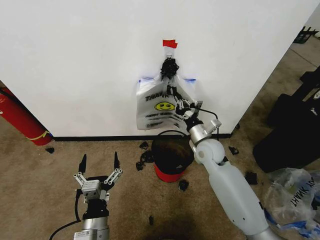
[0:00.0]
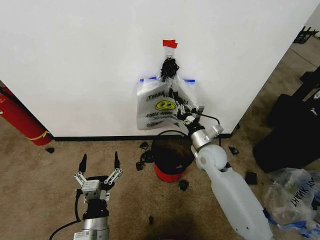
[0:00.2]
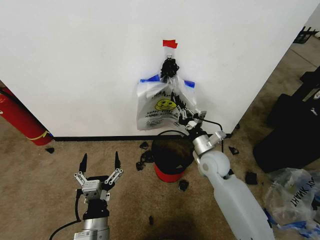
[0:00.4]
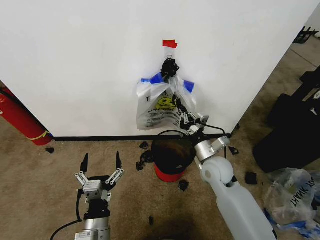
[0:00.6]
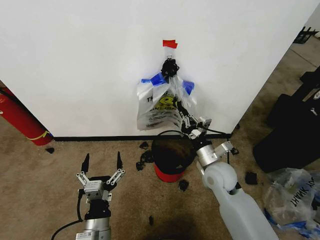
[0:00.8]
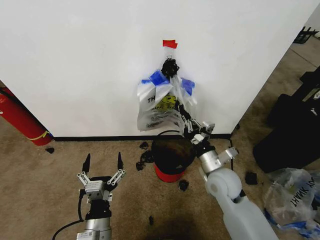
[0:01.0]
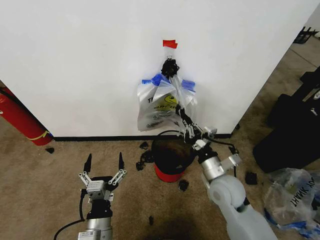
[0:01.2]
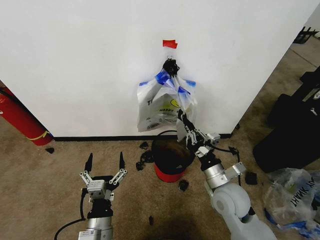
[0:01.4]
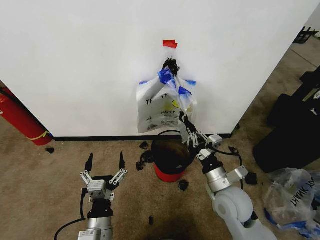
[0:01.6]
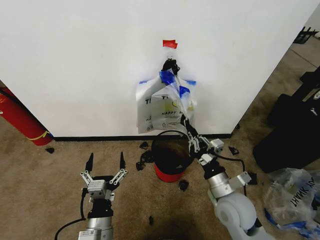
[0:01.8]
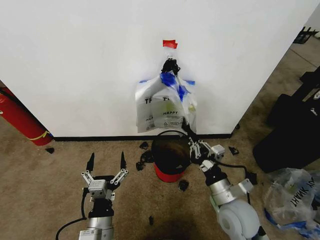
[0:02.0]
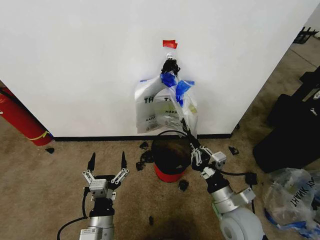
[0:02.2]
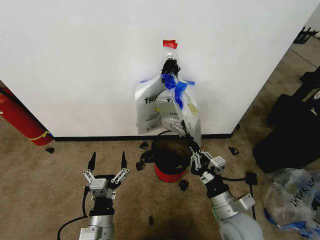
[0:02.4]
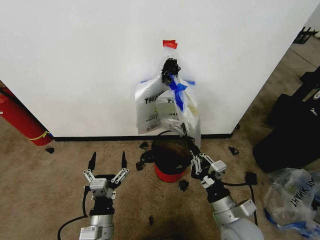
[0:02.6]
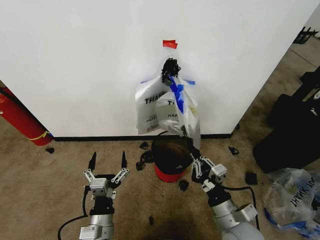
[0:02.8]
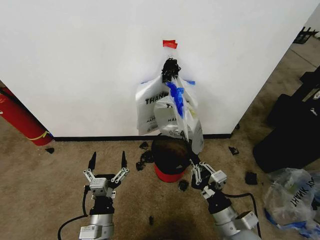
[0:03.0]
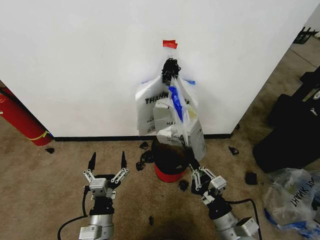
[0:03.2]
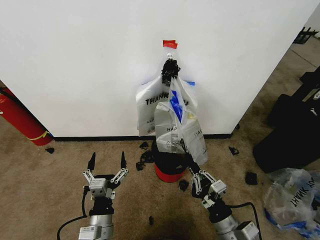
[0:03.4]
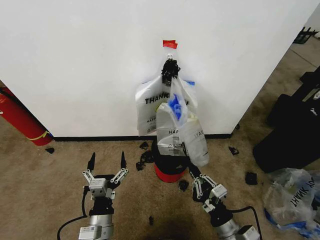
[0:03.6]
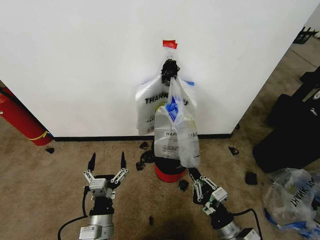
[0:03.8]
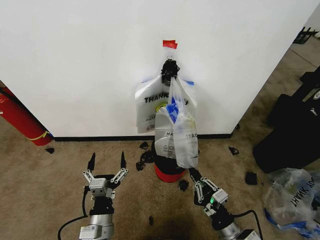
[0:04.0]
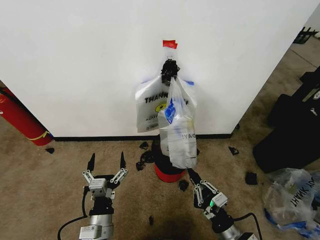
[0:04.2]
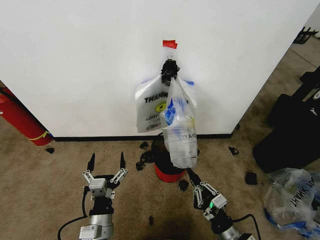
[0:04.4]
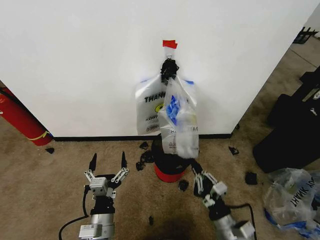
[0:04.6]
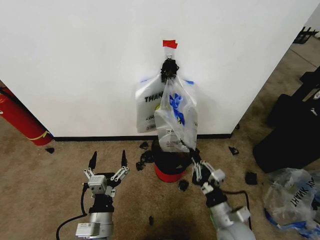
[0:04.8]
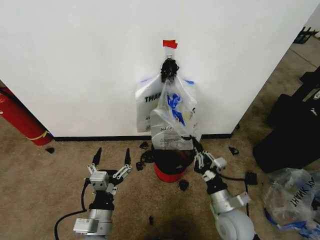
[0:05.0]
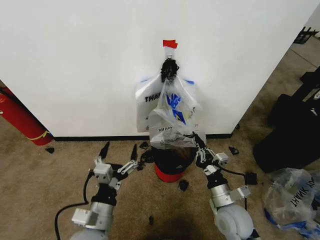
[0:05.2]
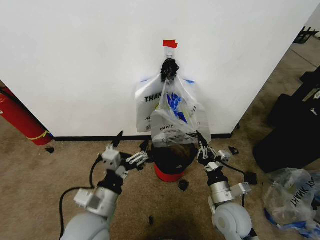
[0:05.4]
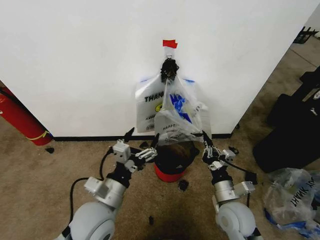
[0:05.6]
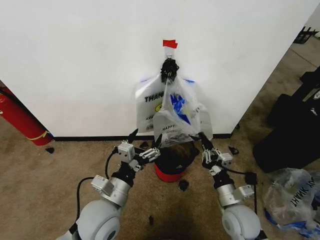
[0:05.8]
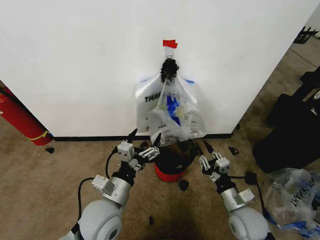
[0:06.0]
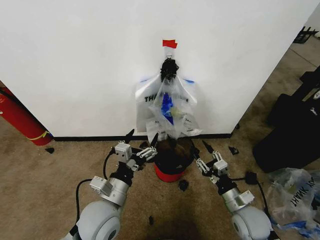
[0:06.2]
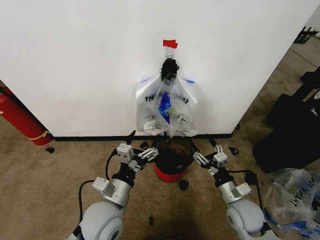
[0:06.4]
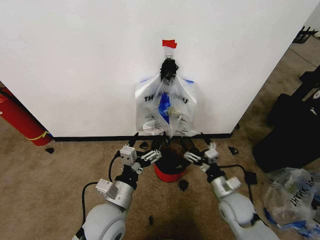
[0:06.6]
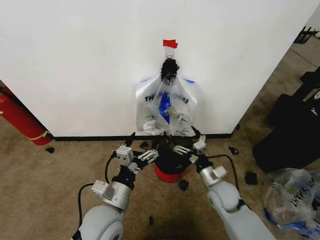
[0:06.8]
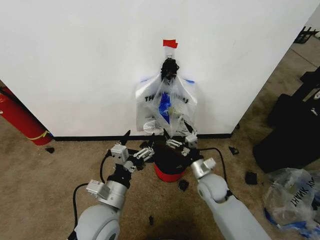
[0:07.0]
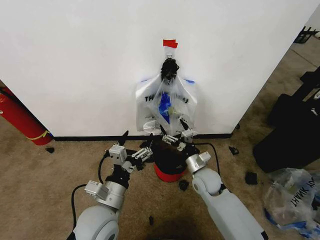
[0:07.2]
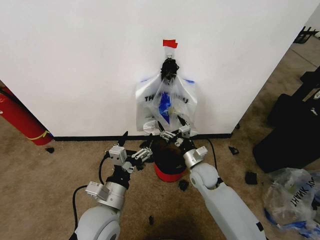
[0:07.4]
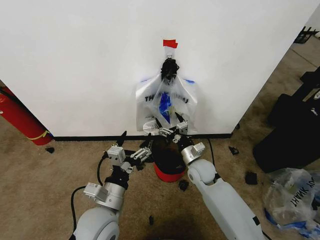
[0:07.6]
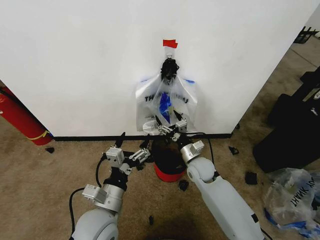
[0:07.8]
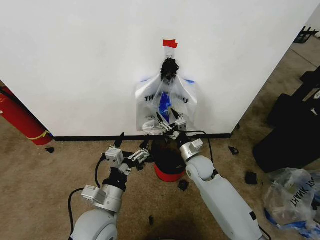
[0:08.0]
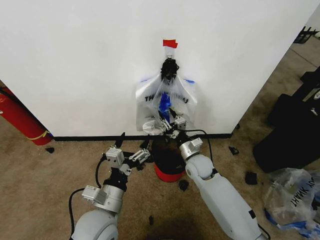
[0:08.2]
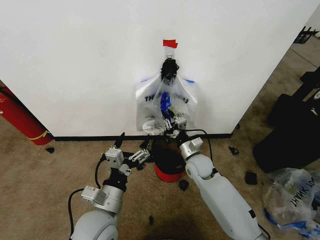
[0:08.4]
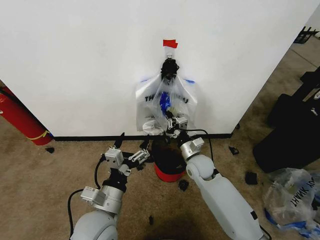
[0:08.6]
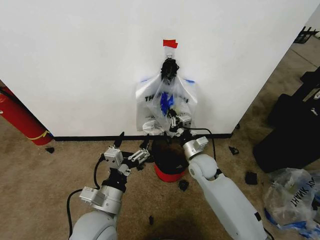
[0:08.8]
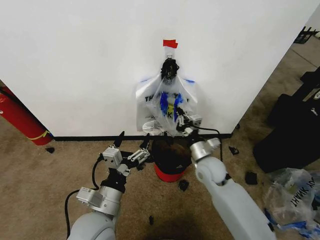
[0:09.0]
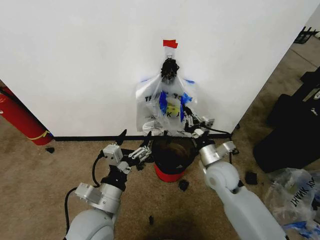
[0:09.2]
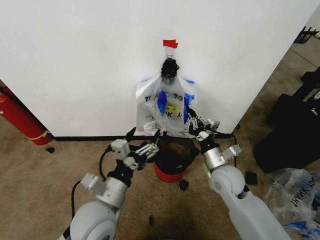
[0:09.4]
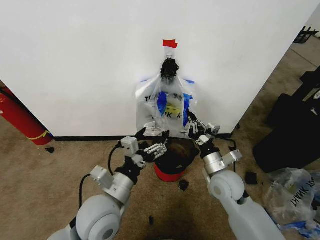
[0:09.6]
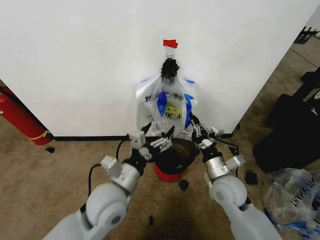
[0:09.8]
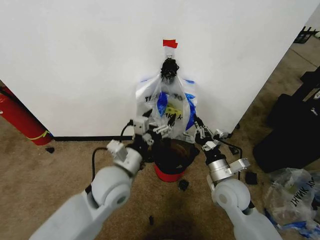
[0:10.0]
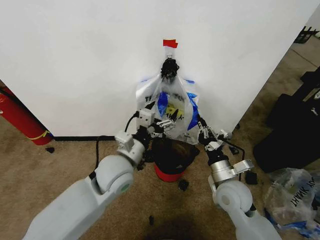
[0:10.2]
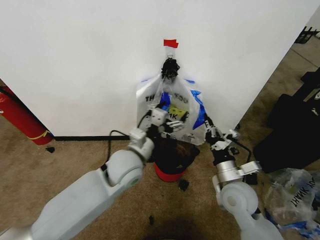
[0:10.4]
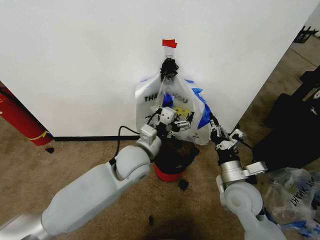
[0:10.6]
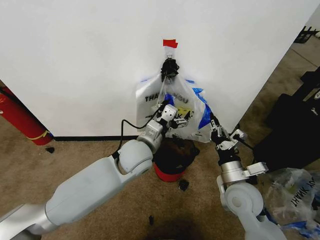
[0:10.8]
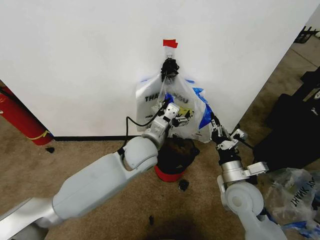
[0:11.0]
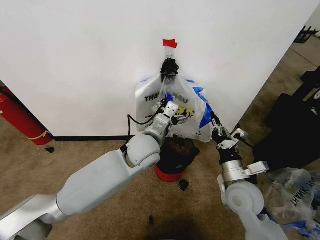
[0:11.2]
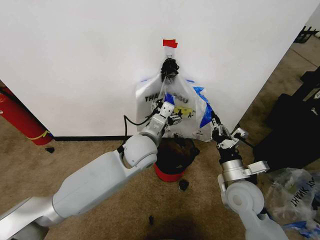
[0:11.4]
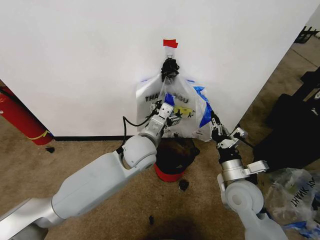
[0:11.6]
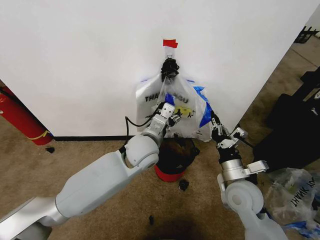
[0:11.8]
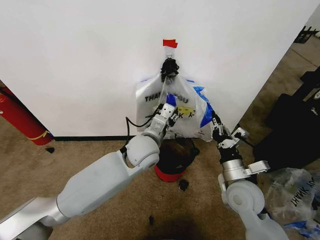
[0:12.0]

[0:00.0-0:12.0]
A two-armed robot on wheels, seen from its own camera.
Task of the whole recording: Pick up the garbage bag from the wall and place it over the trash bin.
0:00.0 to 0:01.6: The right gripper heads backward, covering roughly 15 cm.
0:01.6 to 0:03.0: The right gripper is displaced backward by about 10 cm.
0:03.0 to 0:04.4: The right gripper shifts some 5 cm downward.
0:04.4 to 0:06.0: The left gripper heads upward and forward, covering roughly 10 cm, while the right gripper travels forward by about 10 cm.
0:06.0 to 0:07.6: The right gripper travels forward and to the left by about 20 cm, and opens.
0:07.6 to 0:09.0: The right gripper closes.
0:09.0 to 0:10.4: The left gripper travels forward by approximately 15 cm, while the right gripper goes some 10 cm backward and to the right.
0:10.4 to 0:12.0: The left gripper heads to the right and forward, covering some 5 cm, and closes up.

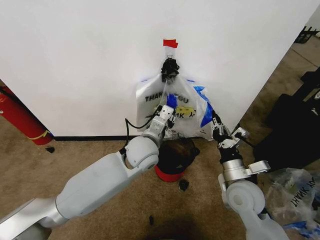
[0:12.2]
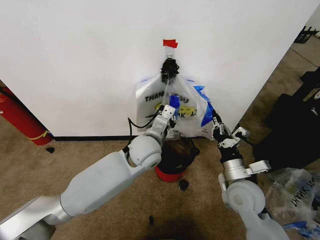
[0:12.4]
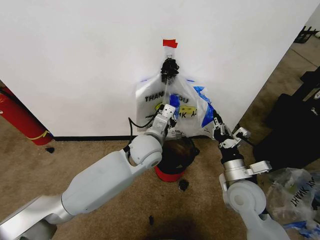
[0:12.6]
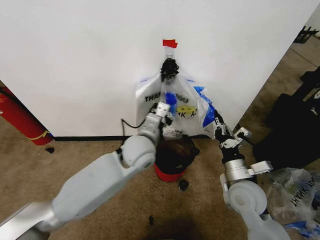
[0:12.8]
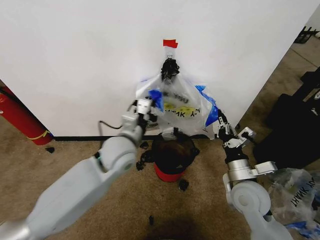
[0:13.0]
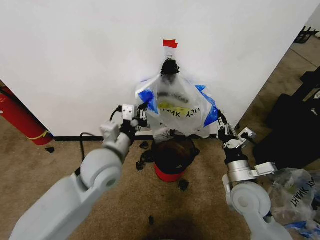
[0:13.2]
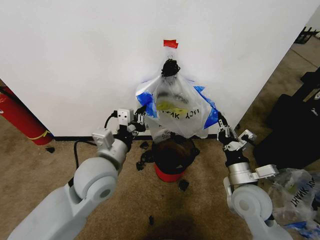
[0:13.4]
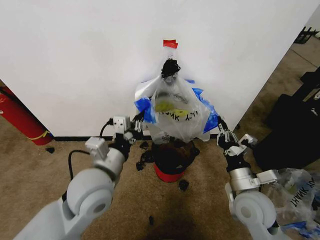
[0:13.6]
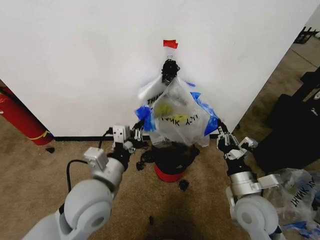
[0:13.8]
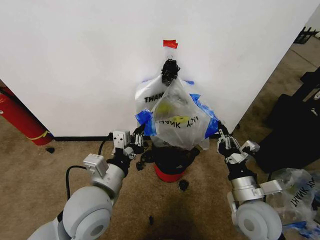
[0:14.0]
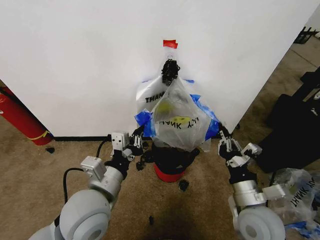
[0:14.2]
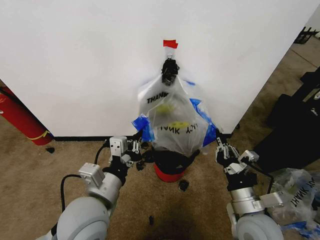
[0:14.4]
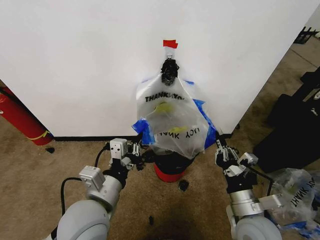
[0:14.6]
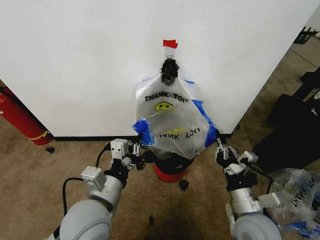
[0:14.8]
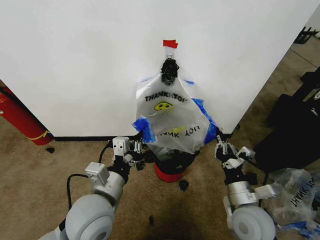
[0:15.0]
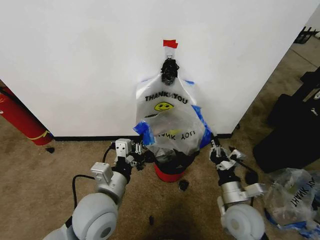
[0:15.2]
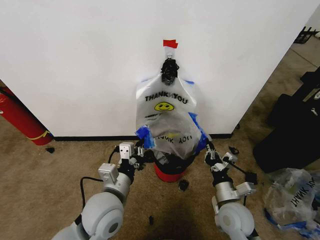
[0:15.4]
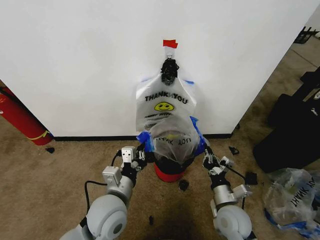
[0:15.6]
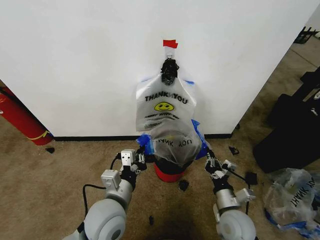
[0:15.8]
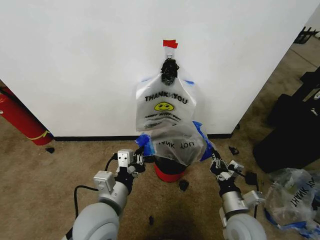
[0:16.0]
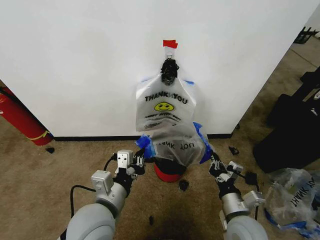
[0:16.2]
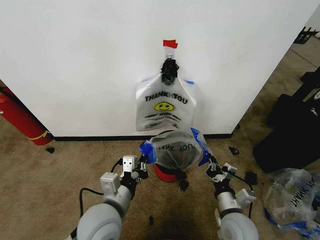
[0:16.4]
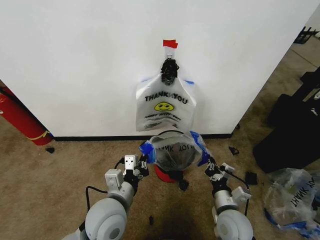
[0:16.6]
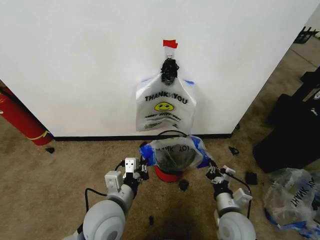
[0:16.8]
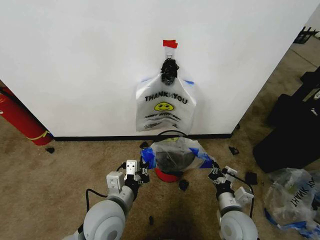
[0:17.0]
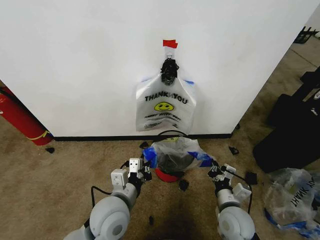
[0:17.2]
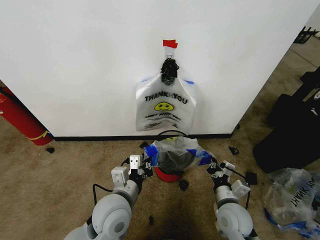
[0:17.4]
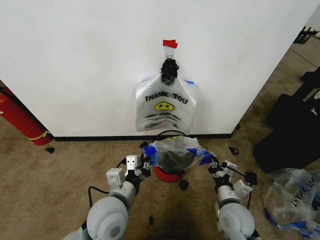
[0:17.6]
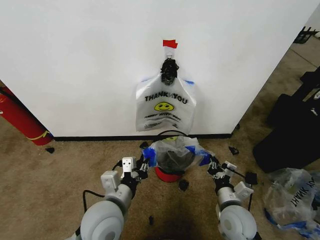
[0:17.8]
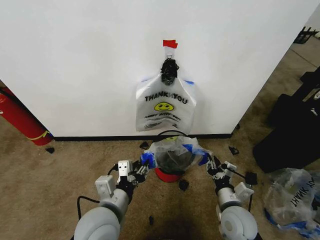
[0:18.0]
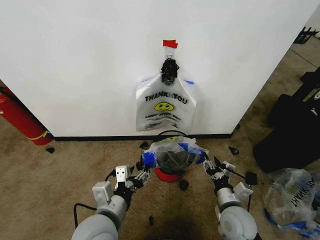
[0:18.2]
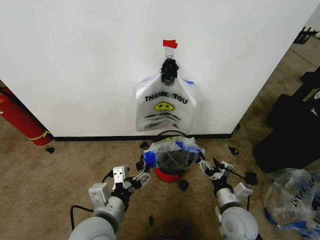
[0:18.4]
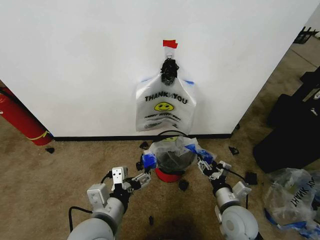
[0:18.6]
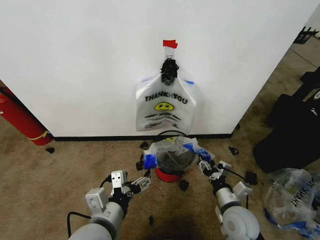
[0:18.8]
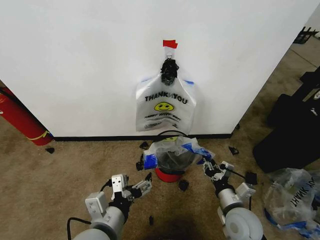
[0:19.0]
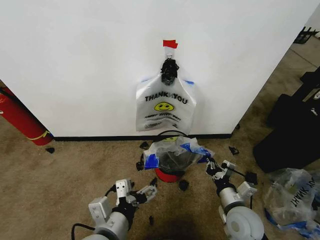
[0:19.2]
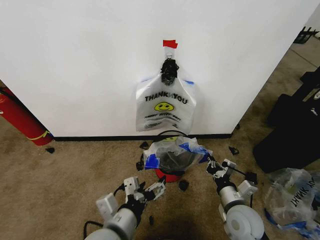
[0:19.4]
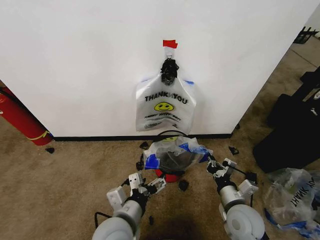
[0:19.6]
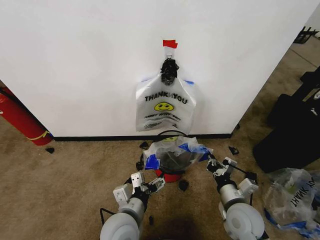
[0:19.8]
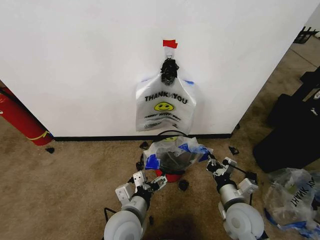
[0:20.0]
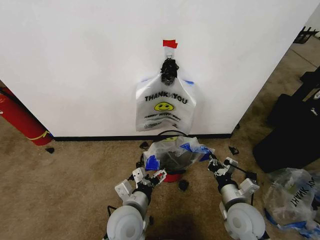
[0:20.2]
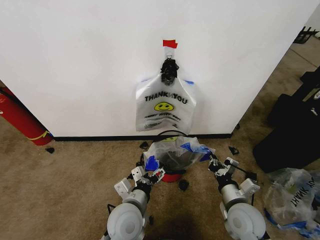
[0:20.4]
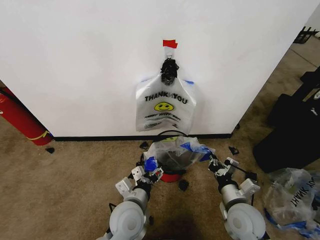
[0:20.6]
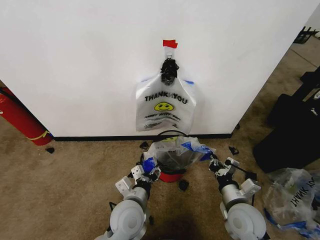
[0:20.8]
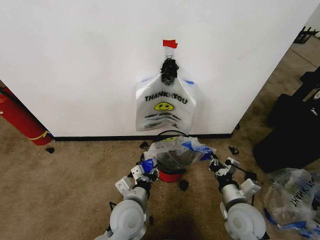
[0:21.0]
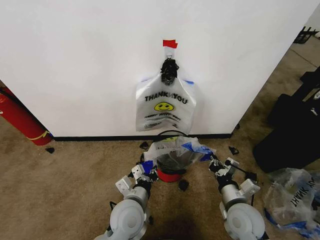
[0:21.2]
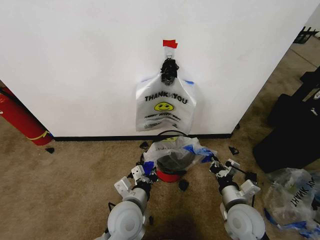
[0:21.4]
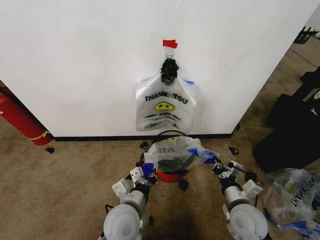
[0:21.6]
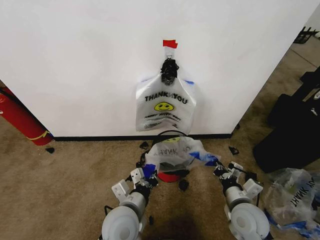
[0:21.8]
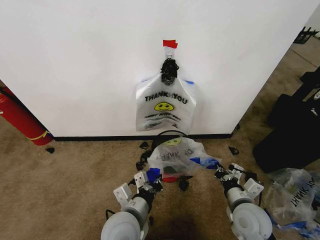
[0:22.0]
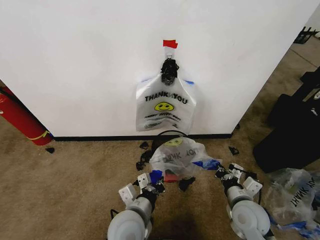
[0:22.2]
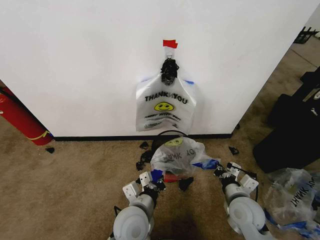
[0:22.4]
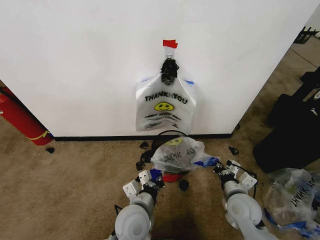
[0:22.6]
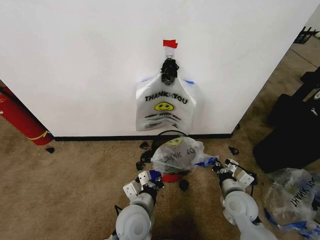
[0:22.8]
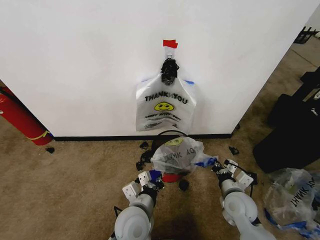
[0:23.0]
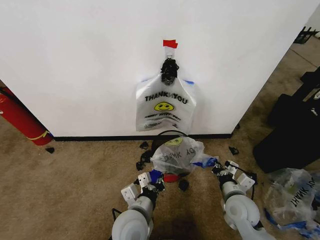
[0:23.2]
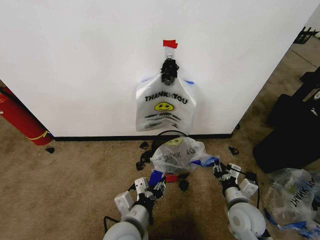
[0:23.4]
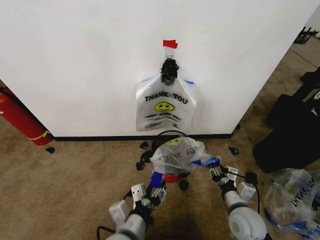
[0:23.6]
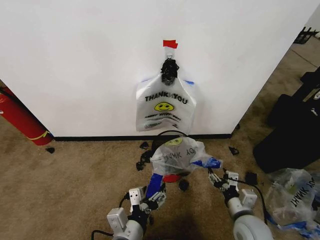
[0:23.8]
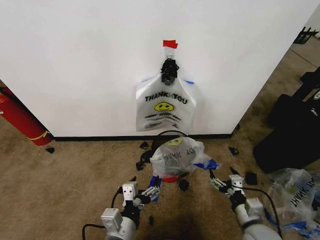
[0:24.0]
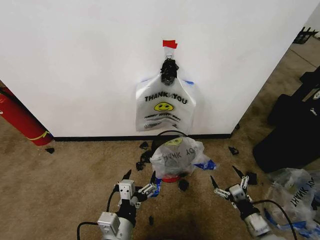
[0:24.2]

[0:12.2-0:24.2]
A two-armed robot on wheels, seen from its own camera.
Task of the whole recording: Pick up the garbage bag from the wall and place it over the trash bin.
0:12.2 to 0:13.8: The left gripper shifts roughly 20 cm backward and to the left.
0:13.8 to 0:15.2: The right gripper travels downward by roughly 5 cm.
0:16.6 to 0:18.2: The left gripper opens. The right gripper opens its fingers.
0:18.2 to 0:19.8: The right gripper closes; the left gripper is displaced downward by roughly 5 cm.
0:19.8 to 0:21.2: The left gripper closes.
0:21.2 to 0:22.6: The grippers stay close to where they were, moving slightly.
0:22.6 to 0:24.2: The right gripper shifts some 15 cm backward, to the right and downward, and opens up. The left gripper heads backward, covering roughly 10 cm, and opens up.
